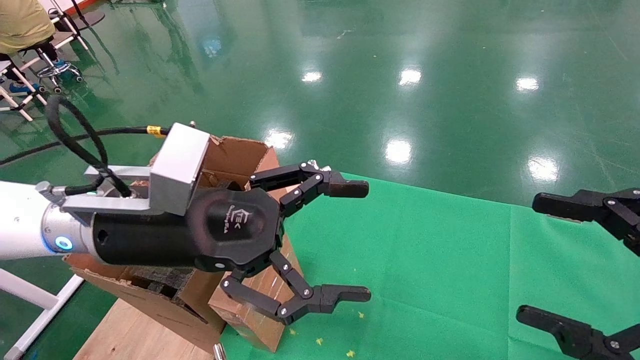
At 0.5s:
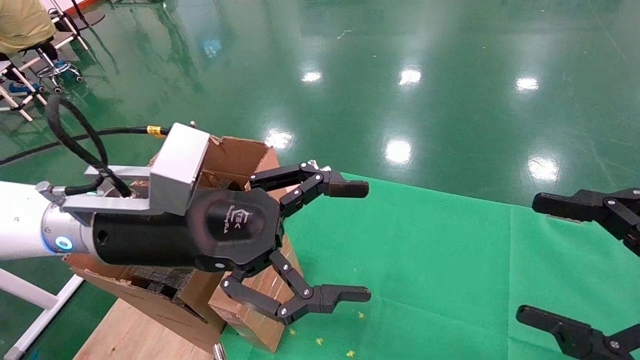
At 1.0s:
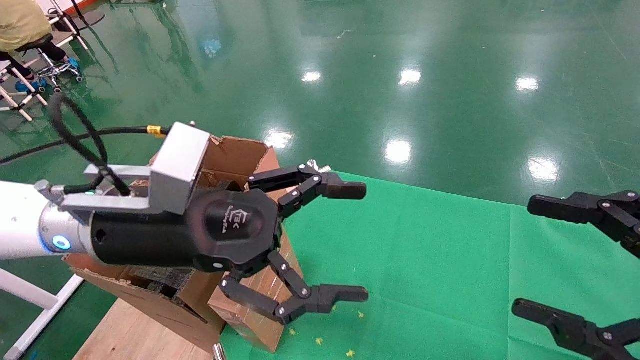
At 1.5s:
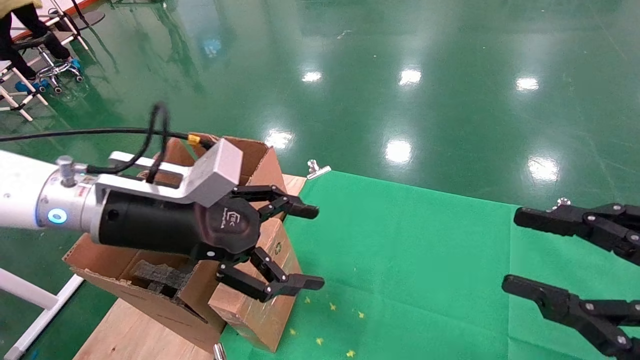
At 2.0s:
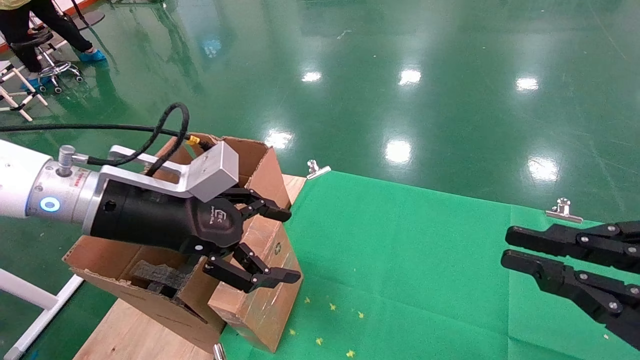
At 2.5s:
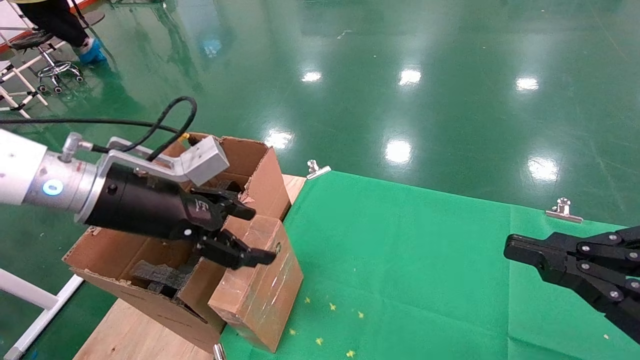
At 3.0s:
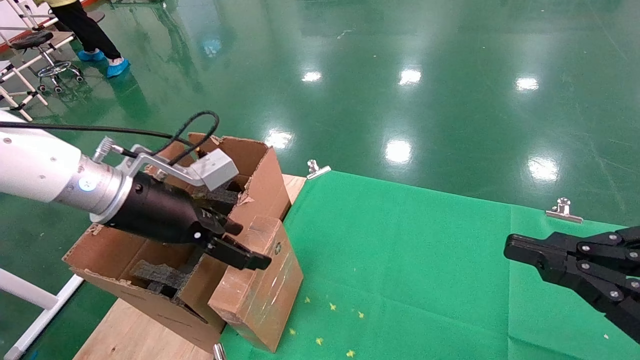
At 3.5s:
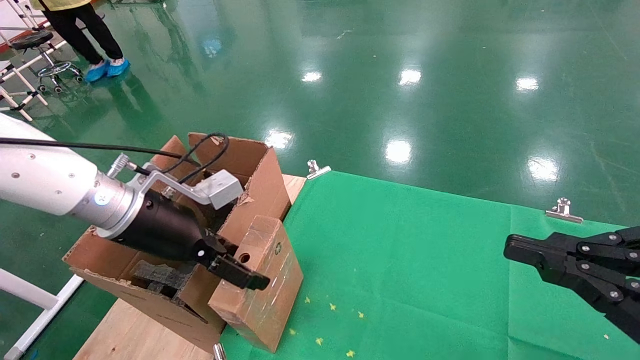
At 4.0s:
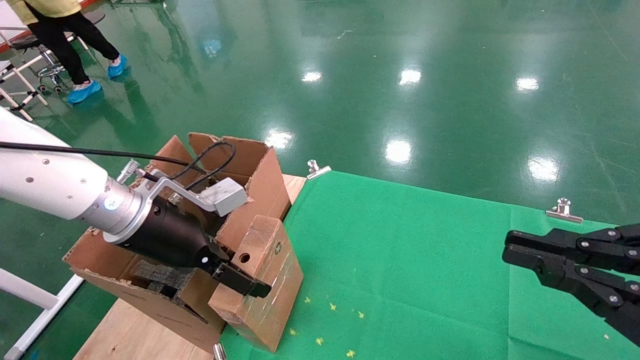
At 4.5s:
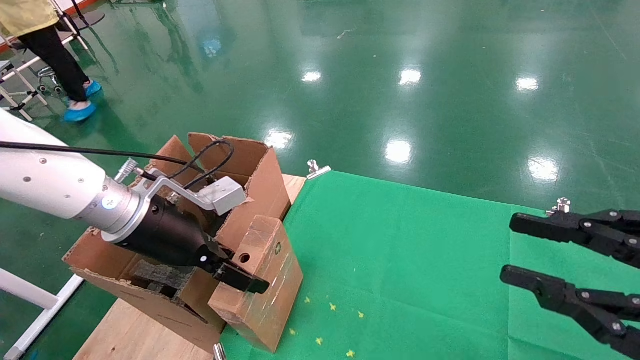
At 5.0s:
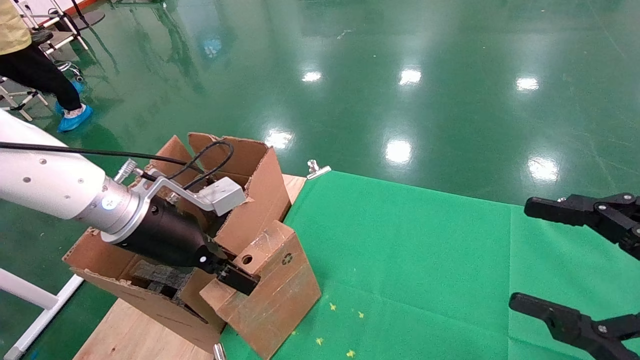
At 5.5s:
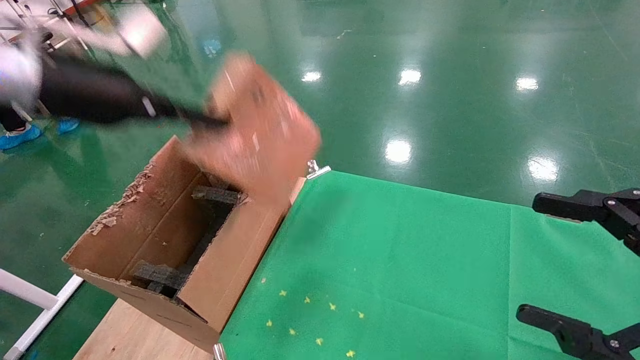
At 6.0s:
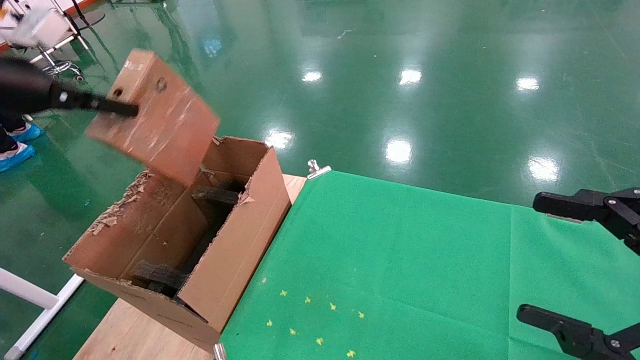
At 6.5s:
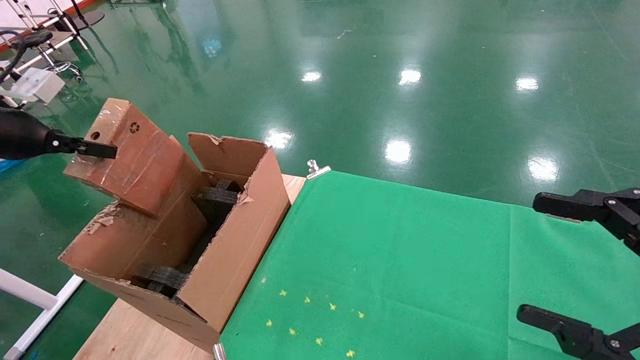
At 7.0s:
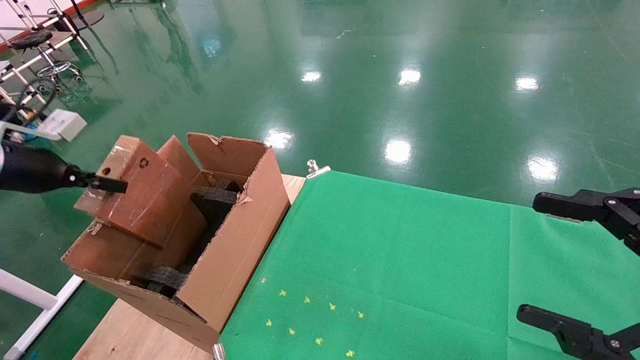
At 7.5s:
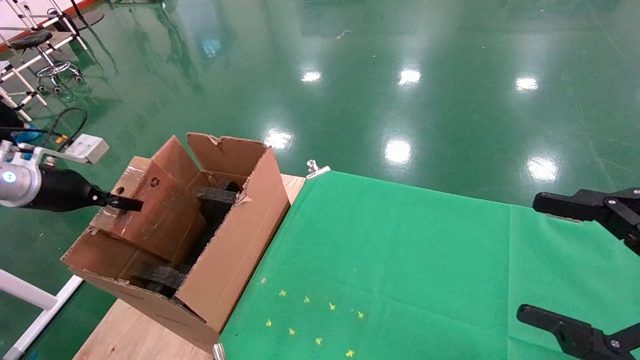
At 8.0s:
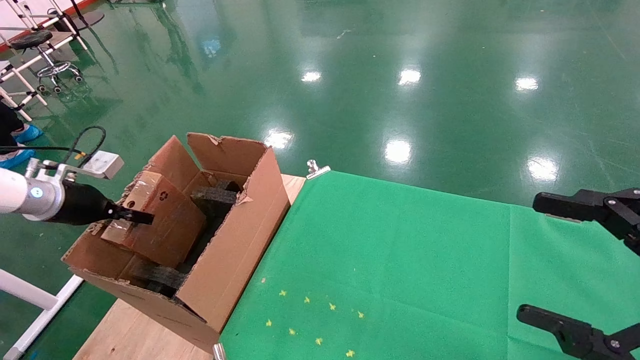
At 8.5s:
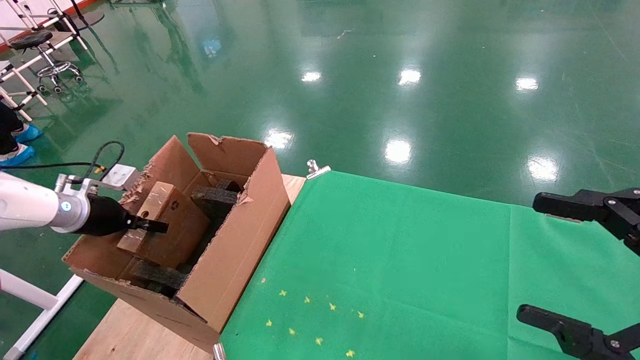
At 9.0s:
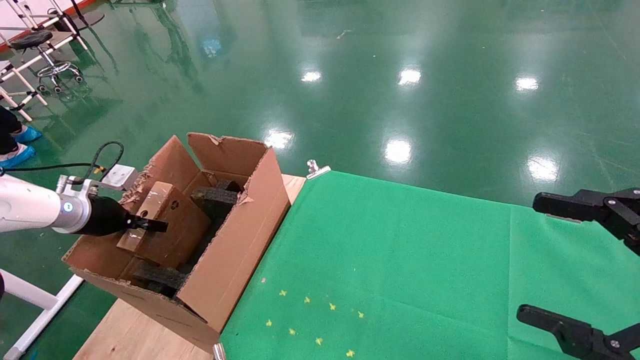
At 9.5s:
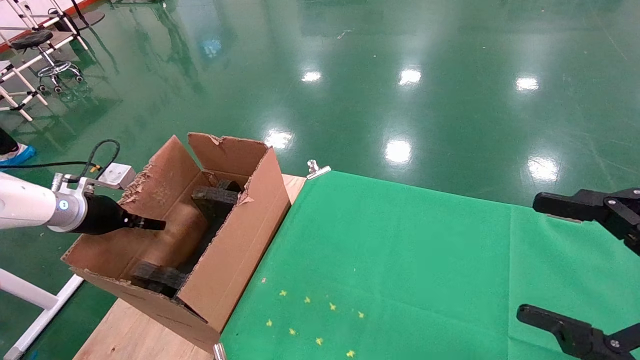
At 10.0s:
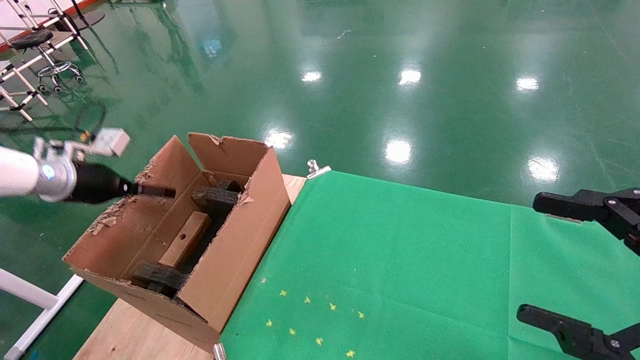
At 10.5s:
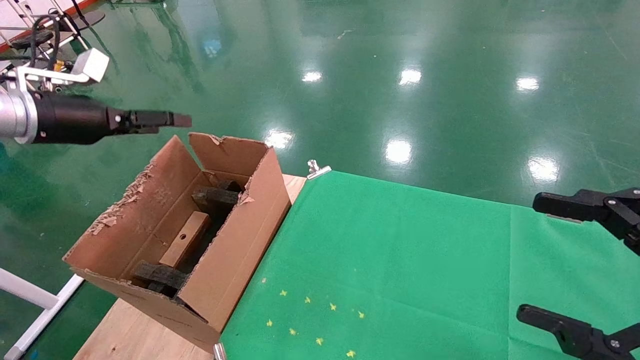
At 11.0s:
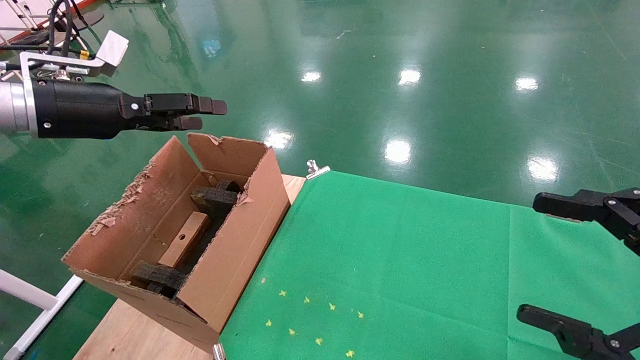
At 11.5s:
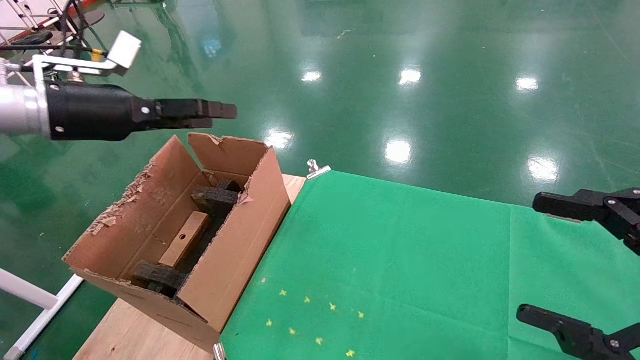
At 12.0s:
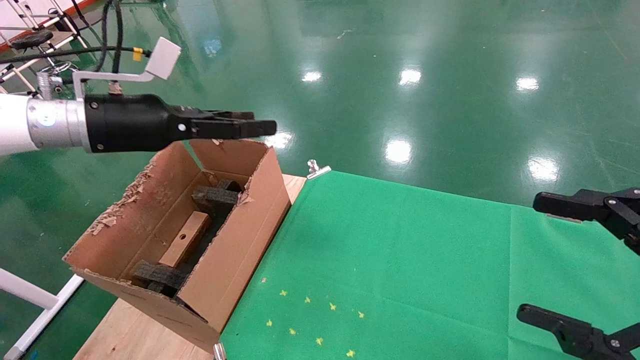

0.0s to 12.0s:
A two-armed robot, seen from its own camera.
Task of the whole recording: using a robotic arm to pick up a cardboard box and palace it the carton.
Step, 1.5s to 4.5s: Pick up the mouse and the power cord paper box.
Step, 5.0s to 10.0s: Place the mouse and the power cord paper box into the container.
0.0s to 2.0s: The left gripper moves to the left, approximately 5 cm, while the right gripper closes its fingers.
2.0s to 4.0s: The left gripper moves roughly 5 cm.
4.0s to 6.0s: The left gripper goes roughly 25 cm to the left and upward, and closes up. The right gripper opens its fingers.
6.0s to 8.0s: The left gripper moves downward, about 20 cm.
8.0s to 10.0s: The left gripper opens up.
10.0s to 12.0s: The left gripper goes about 20 cm to the right and upward.

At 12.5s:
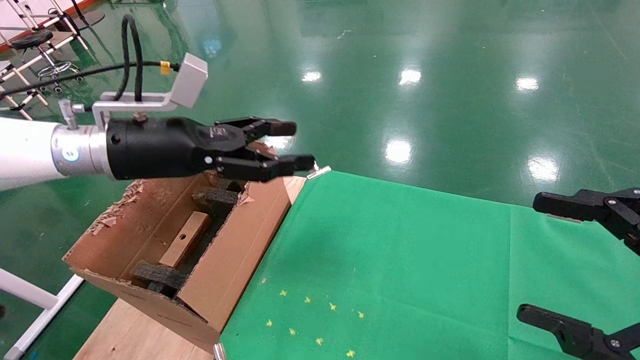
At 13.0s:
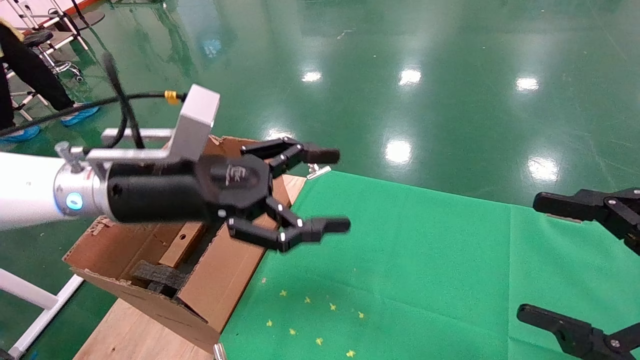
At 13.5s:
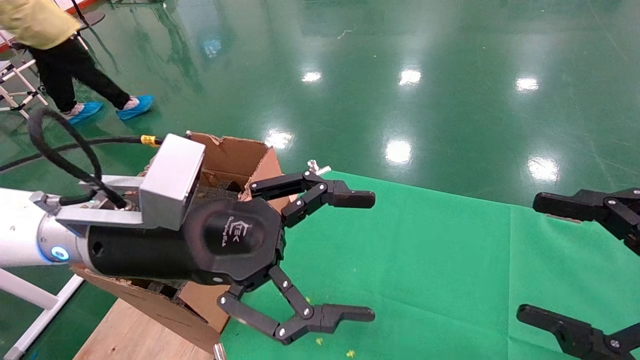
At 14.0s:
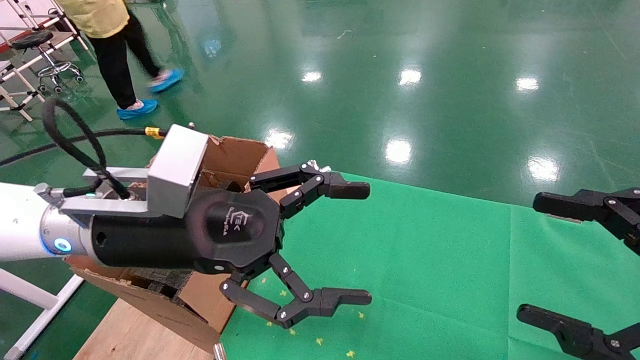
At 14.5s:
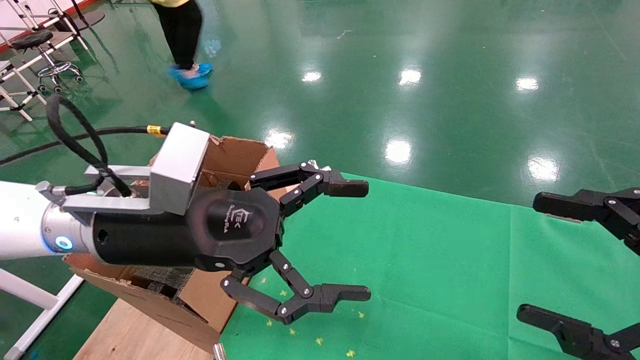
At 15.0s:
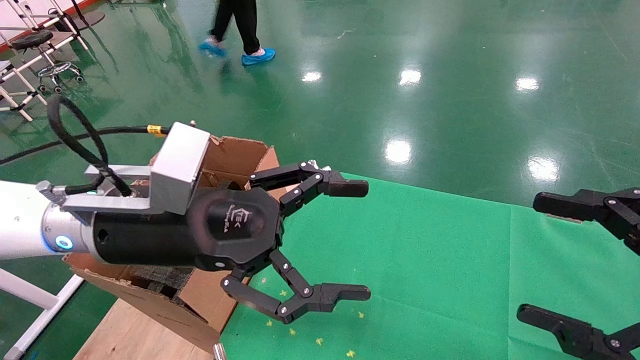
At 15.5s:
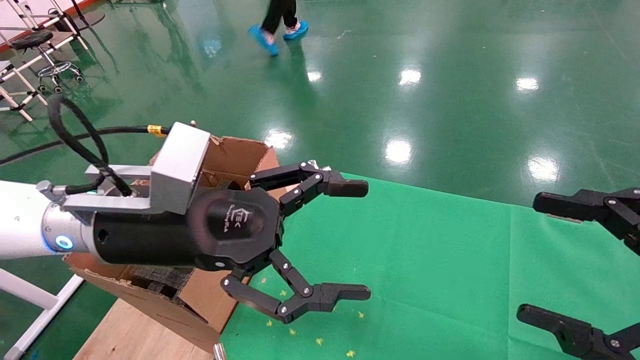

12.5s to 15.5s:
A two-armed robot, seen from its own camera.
Task of the whole recording: using a robotic arm to pick up a cardboard box and palace it the carton.
12.5s to 14.0s: The left gripper moves backward and to the right, approximately 10 cm.
14.0s to 15.5s: Both grippers stay about where they are.

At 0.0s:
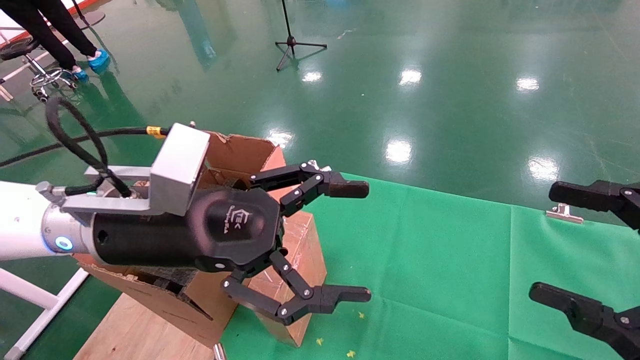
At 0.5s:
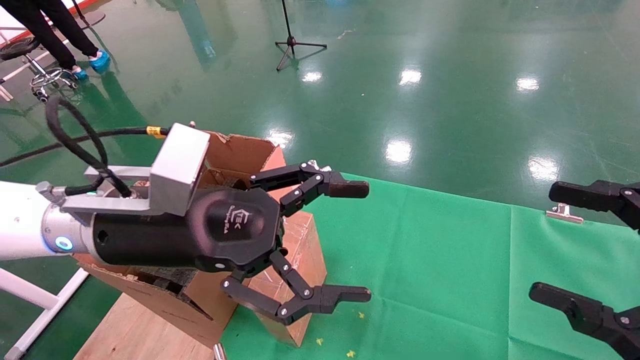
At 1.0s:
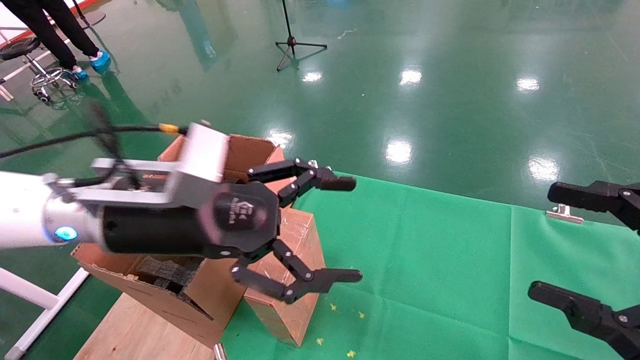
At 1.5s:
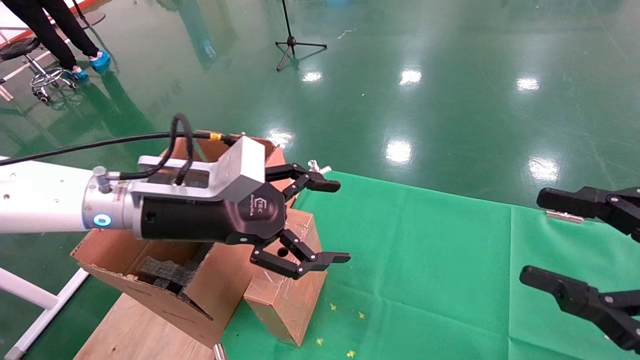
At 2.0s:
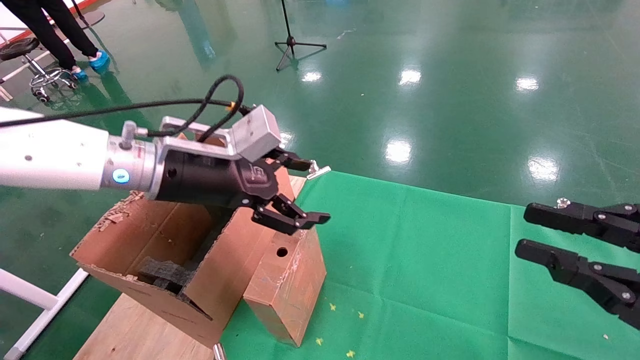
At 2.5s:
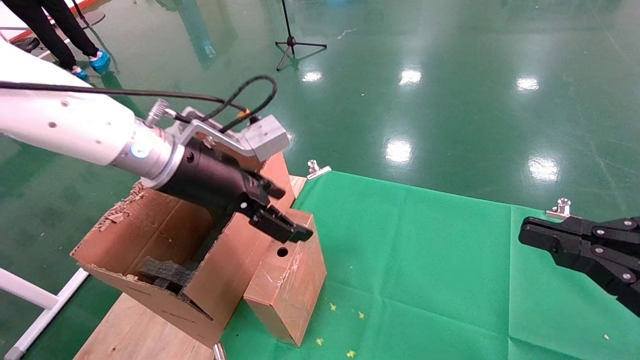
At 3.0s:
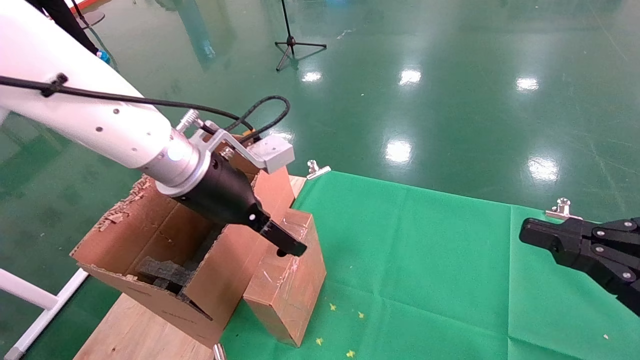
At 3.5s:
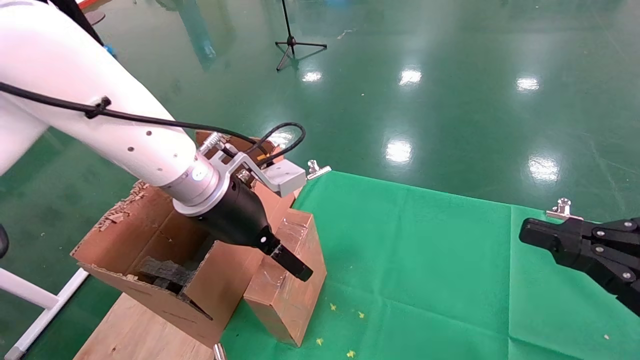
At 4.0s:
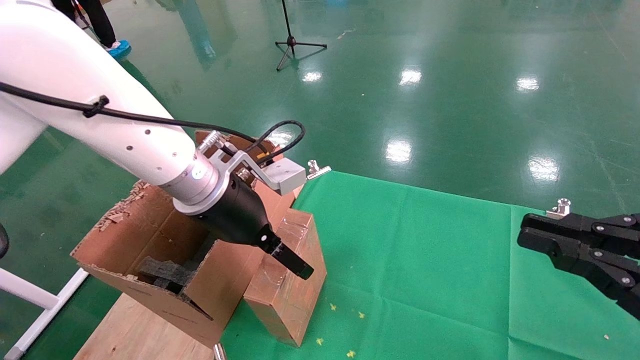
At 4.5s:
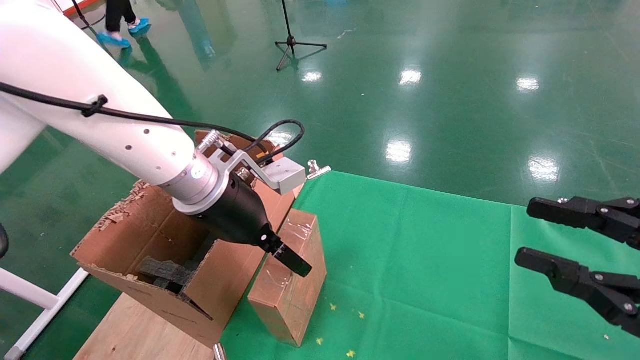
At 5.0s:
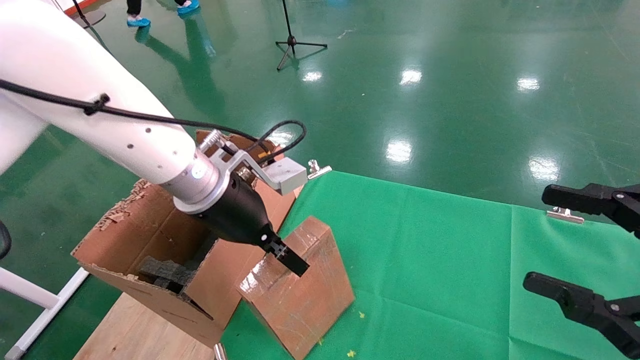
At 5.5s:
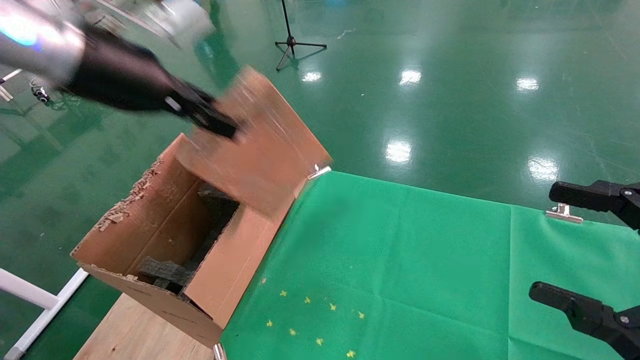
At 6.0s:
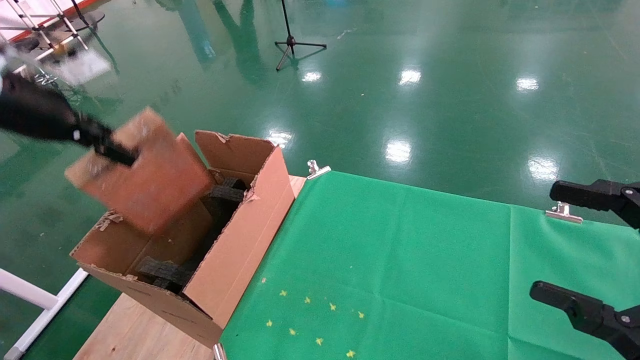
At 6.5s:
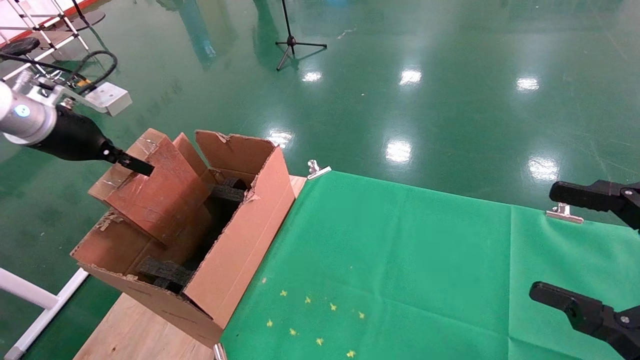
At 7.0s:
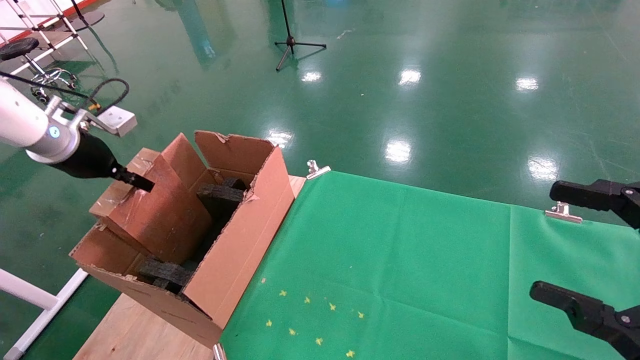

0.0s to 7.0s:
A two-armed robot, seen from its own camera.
Task of the whole recording: using a robotic arm to pick up a cardboard box and palace it the carton.
Step, 1.5s to 5.0s: Pick up the mouse and the power cord paper box.
0.0s to 2.0s: The left gripper heads forward, covering roughly 10 cm, while the right gripper closes.
2.0s to 3.5s: The right gripper closes up; the left gripper moves to the right, roughly 5 cm.
3.5s to 5.0s: The right gripper opens, while the left gripper closes up.
5.0s to 7.0s: The left gripper heads to the left, covering about 30 cm.
